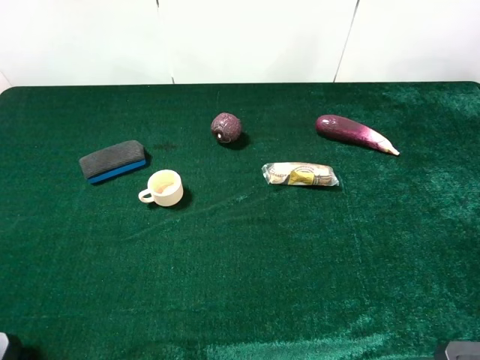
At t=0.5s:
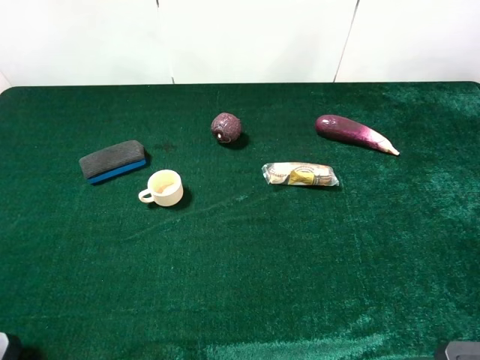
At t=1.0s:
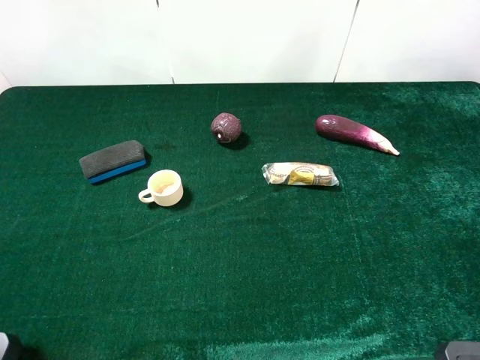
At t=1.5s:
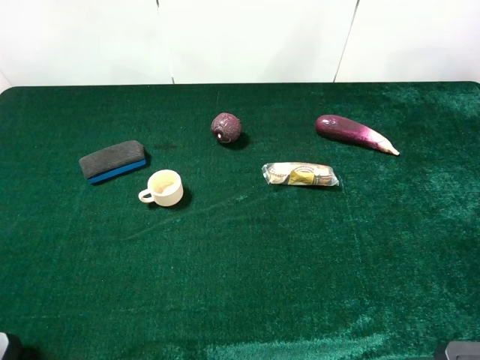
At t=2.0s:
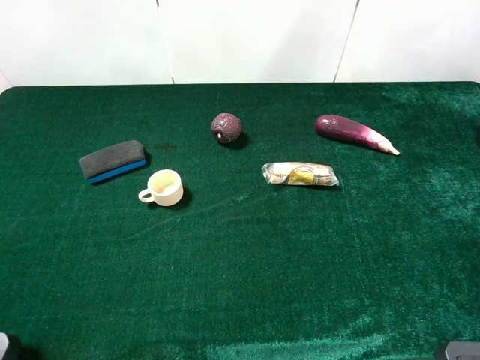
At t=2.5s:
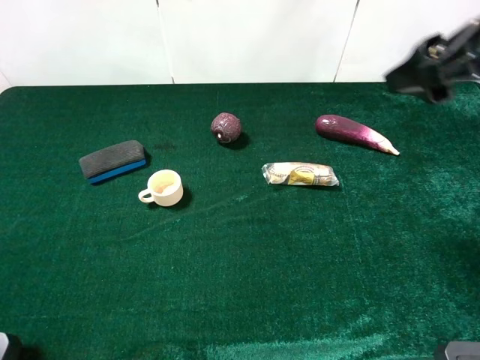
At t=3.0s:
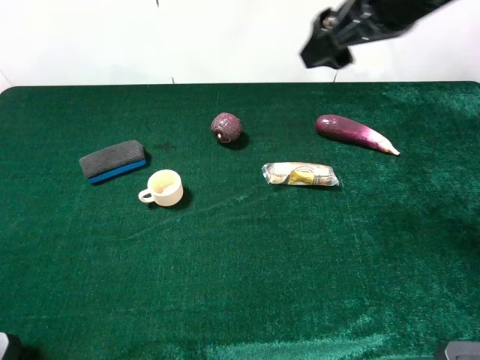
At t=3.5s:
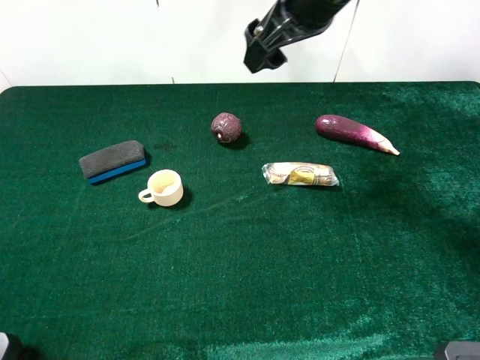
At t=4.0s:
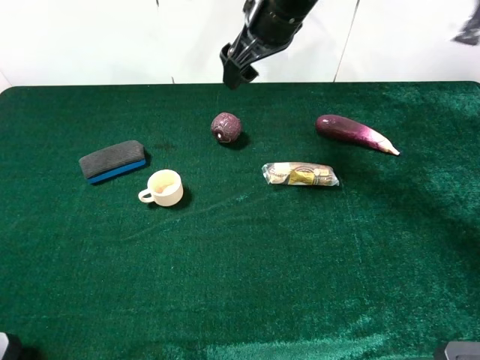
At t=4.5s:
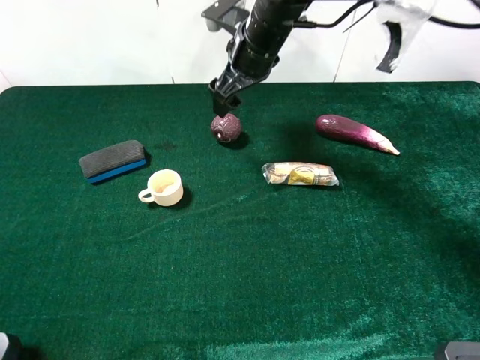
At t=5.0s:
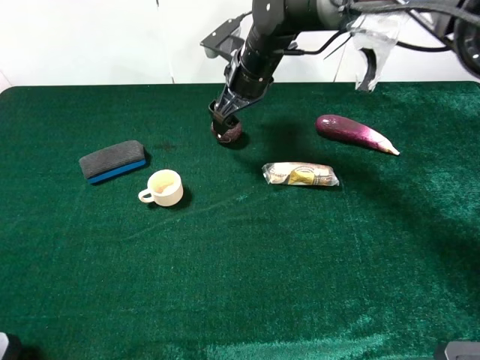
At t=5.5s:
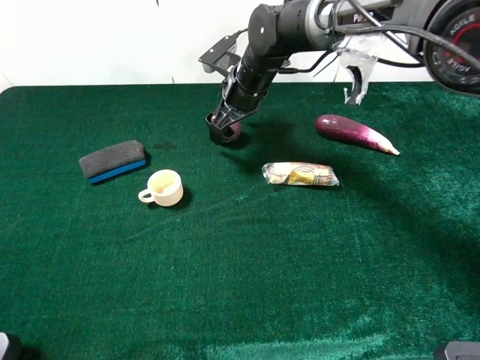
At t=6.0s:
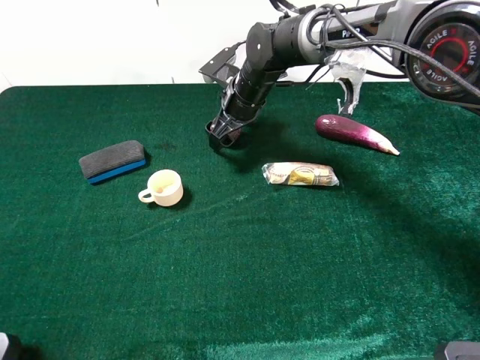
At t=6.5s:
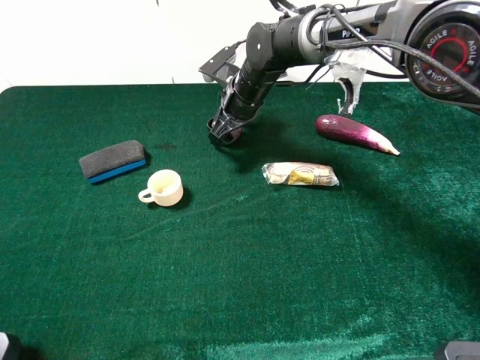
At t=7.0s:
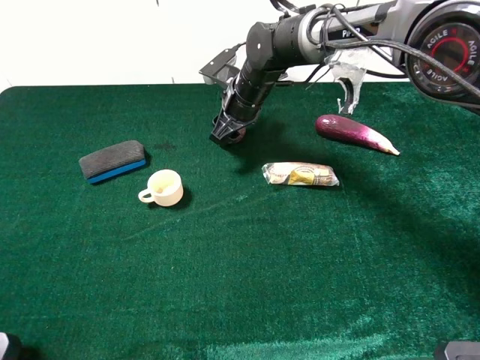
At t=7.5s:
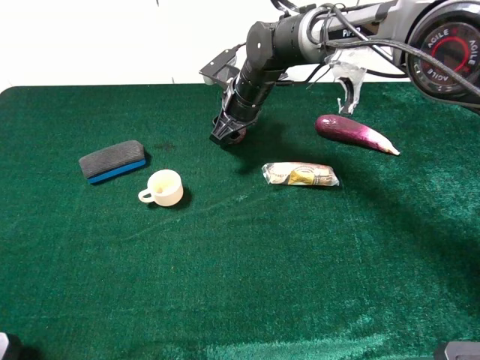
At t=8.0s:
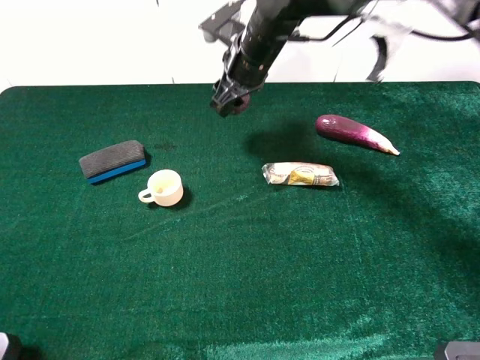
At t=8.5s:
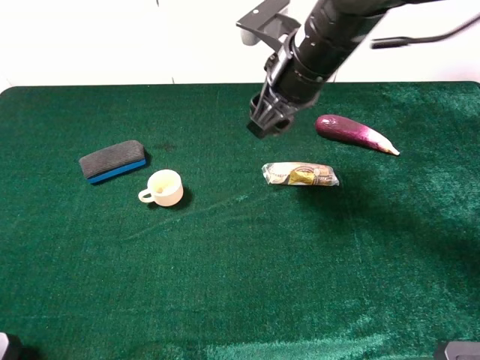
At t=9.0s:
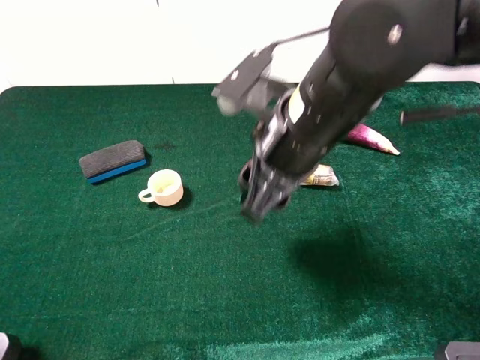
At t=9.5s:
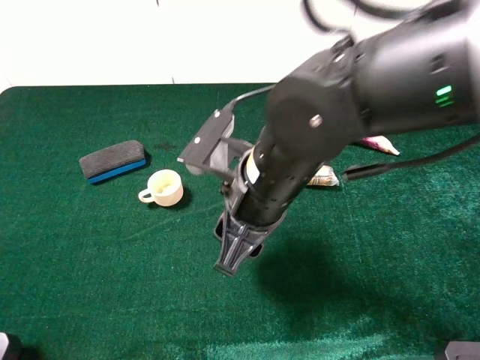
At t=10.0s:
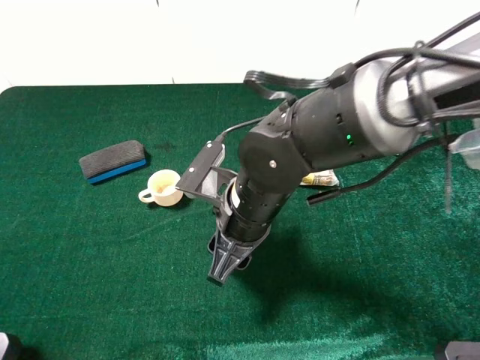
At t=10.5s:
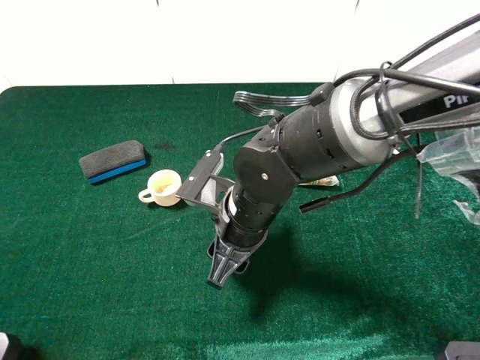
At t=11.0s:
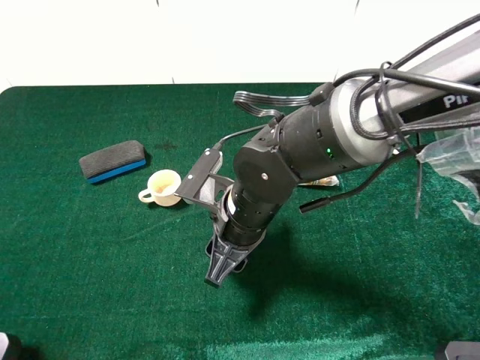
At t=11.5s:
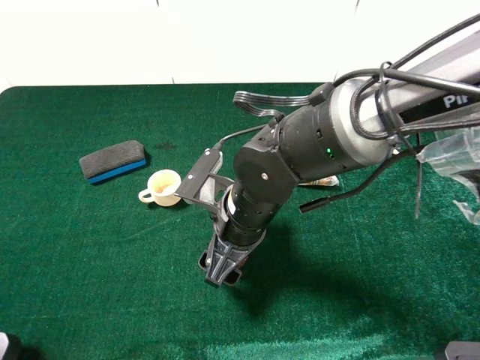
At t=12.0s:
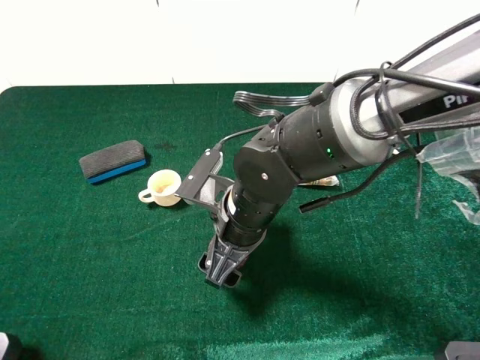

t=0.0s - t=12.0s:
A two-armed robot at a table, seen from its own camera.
Task of the whole recording: the gripper move the object.
Step, t=0.0s - t=6.5s: Grasp the mangosteen with the right gripper.
t=2.0s - t=4.0s: The right gripper is displaced forward and to the left by approximately 35 cm.
t=4.0s - t=6.0s: The right gripper is displaced downward by approximately 15 cm.
t=6.0s - t=8.0s: The right gripper moves upward, some 10 cm, and closes.
t=8.0s - t=10.0s: The right gripper travels backward by approximately 20 cm.
t=10.0s - t=12.0s: The right gripper opens its fingers.

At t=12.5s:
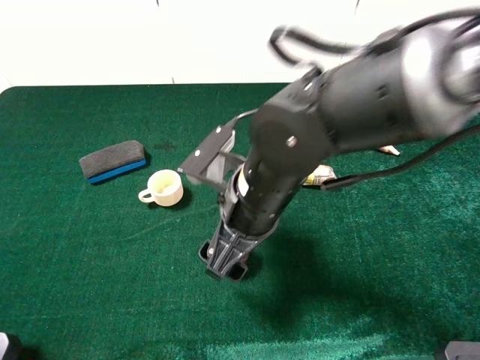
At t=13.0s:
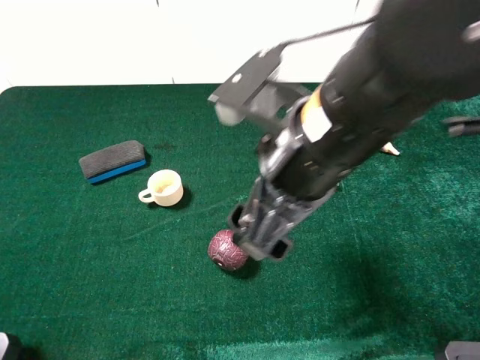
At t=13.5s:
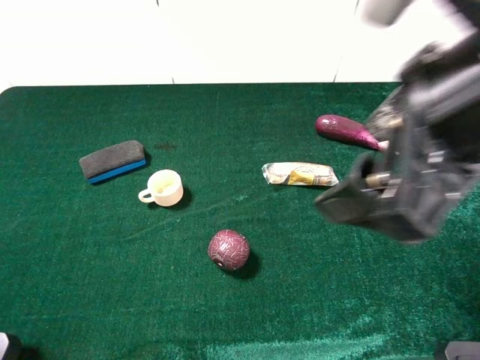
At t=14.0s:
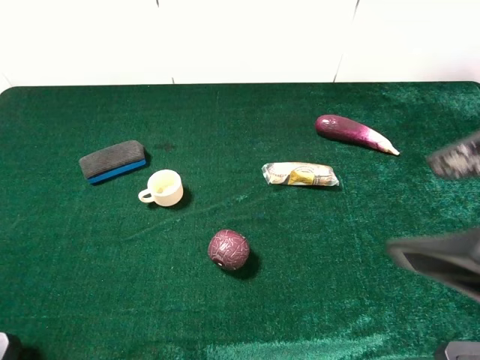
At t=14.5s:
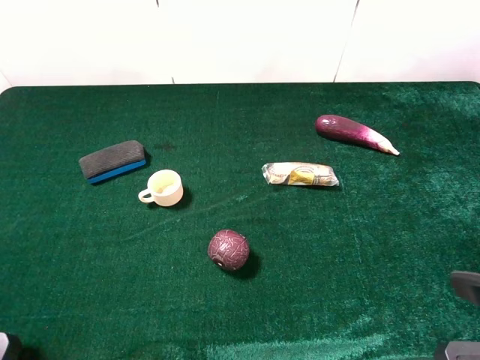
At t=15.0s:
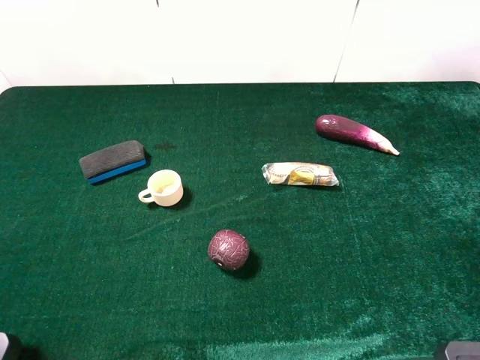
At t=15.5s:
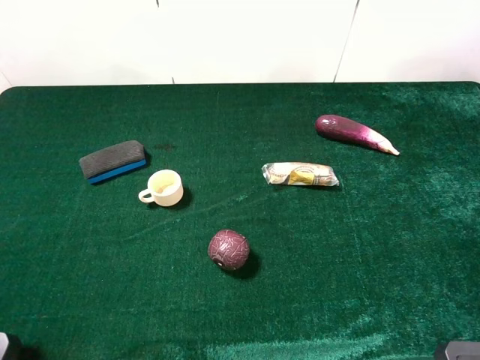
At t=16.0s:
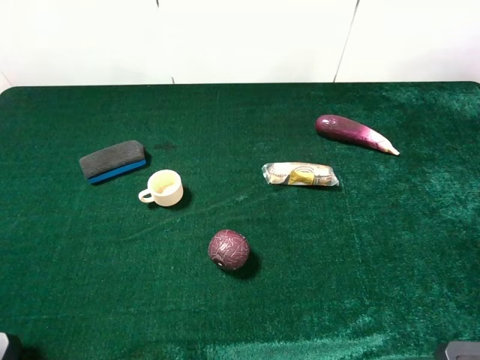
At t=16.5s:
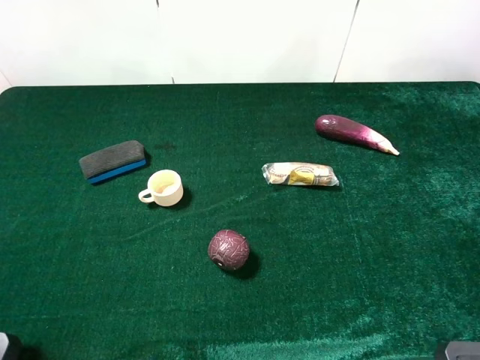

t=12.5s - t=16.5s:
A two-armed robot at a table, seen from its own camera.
Task of the whole recording: the gripper move the object.
t=12.5s - t=14.5s: The right gripper heads to the right, backward and upward, covering about 30 cm.

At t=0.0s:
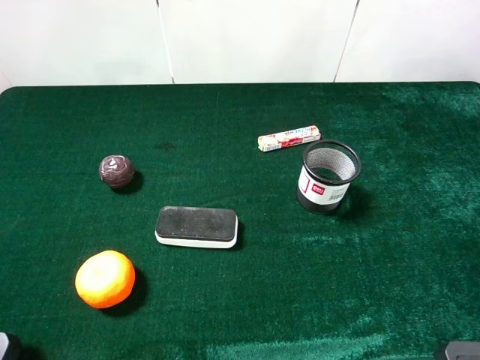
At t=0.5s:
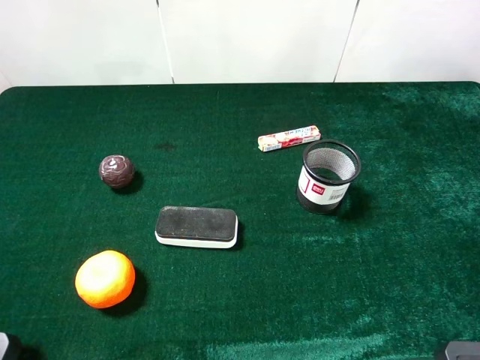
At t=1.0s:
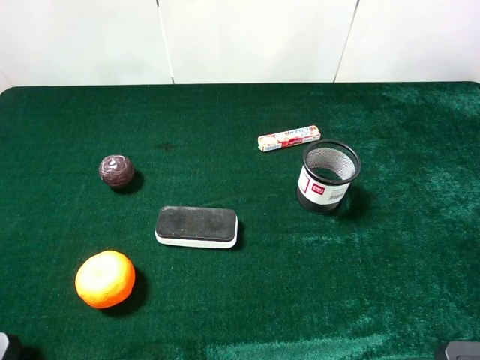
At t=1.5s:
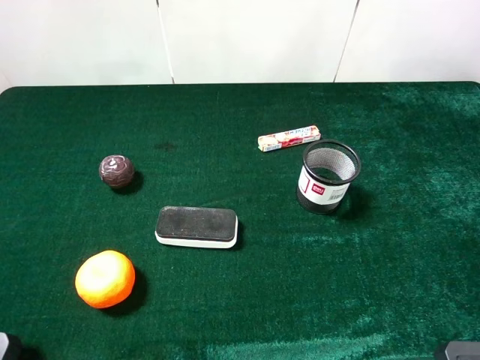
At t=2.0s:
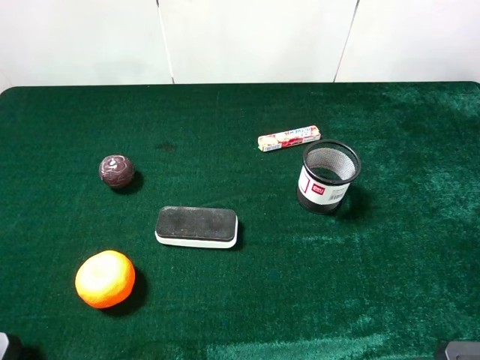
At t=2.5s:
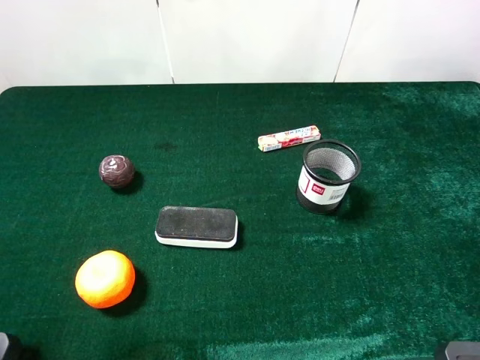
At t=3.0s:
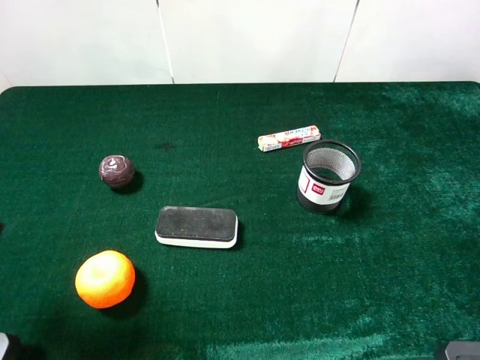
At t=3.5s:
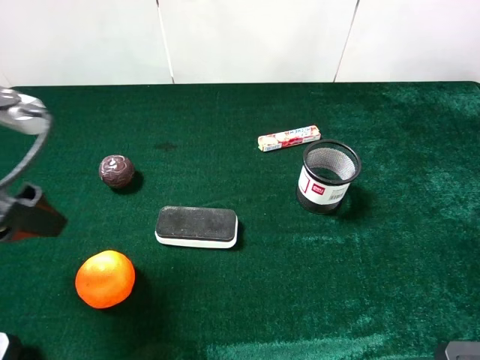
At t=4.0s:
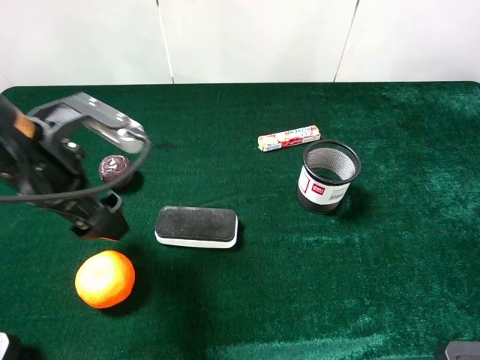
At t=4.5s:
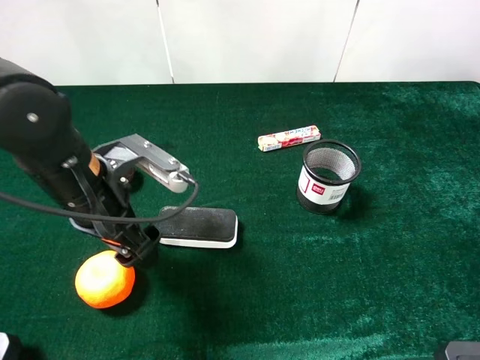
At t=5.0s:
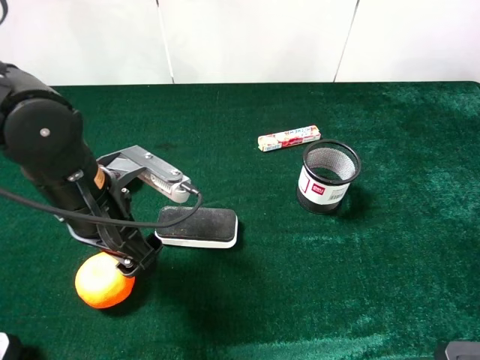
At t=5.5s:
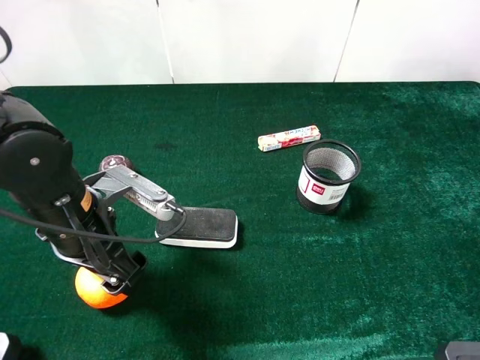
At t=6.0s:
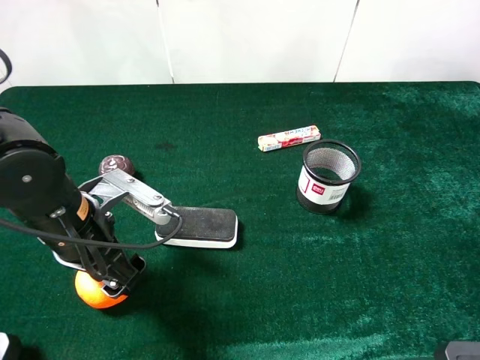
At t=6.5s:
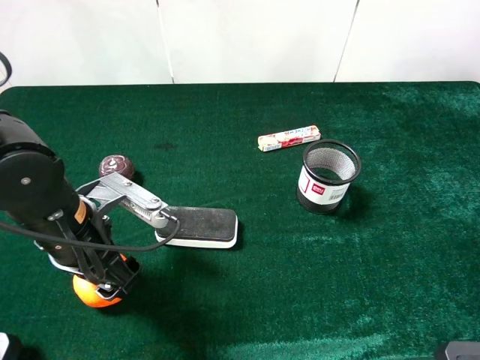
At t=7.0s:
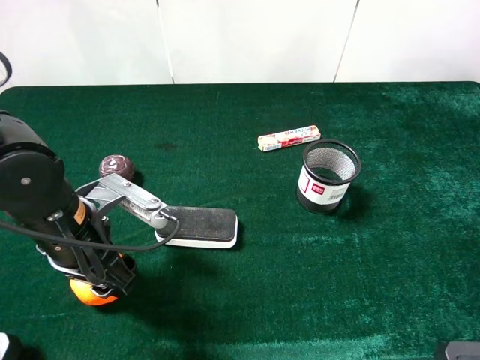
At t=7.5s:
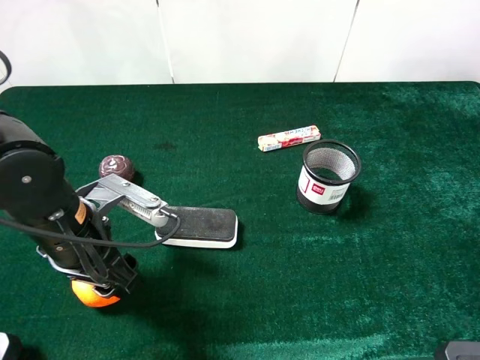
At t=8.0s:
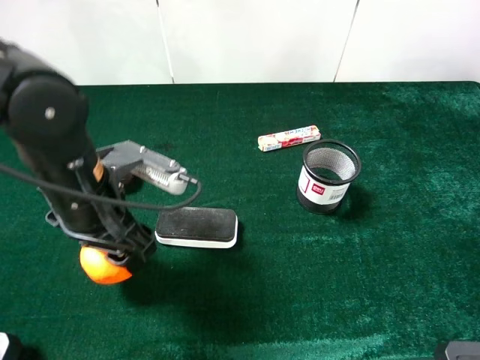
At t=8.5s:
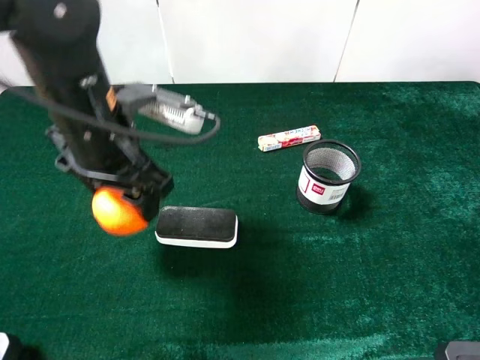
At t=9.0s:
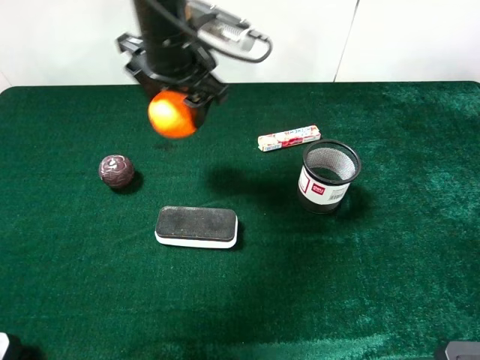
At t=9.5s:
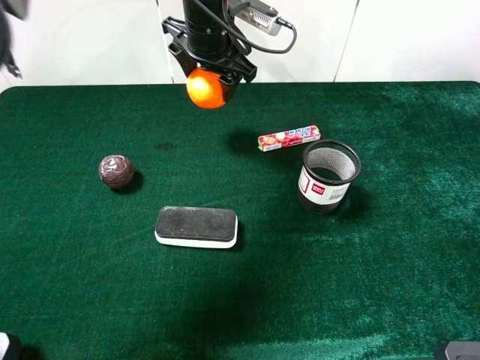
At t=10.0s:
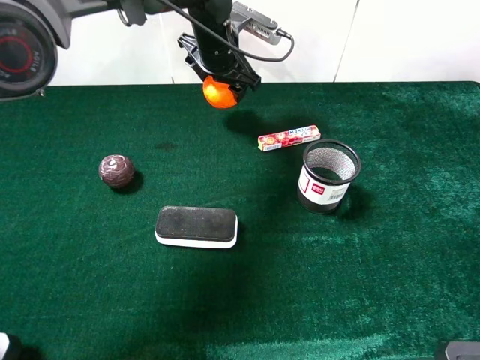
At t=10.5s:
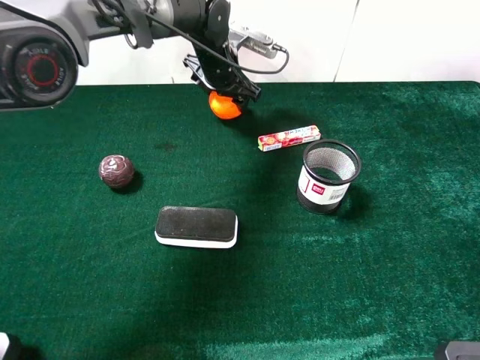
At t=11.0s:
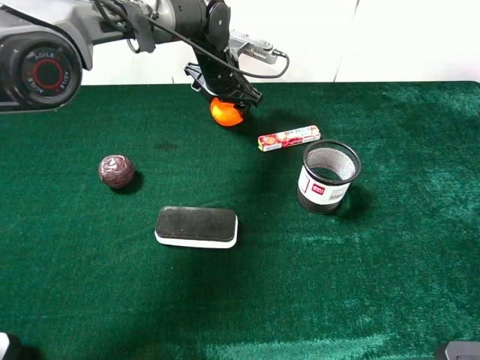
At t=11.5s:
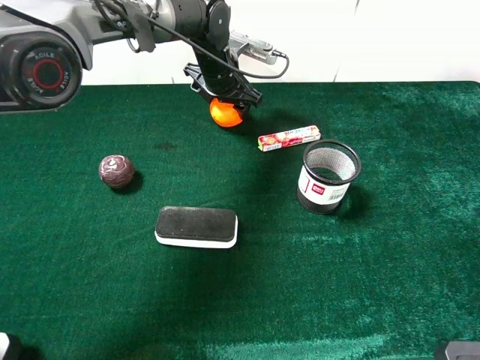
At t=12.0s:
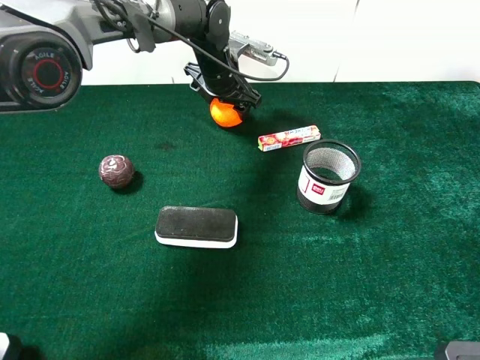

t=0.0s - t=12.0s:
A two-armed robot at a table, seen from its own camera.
Task of the whole recording: the gripper move the object.
Step, t=0.0s - t=6.5s: Grasp the orange with the left gripper.
t=0.0s - t=2.0s: Both grippers stay put.
t=2.0s - t=4.0s: The left gripper moves forward, to the right and downward, approximately 25 cm.
t=4.0s - t=6.0s: The left gripper goes about 10 cm downward.
t=6.0s - t=8.0s: The left gripper ends up about 5 cm from where it was, and closes up.
t=8.0s - t=10.0s: The left gripper is displaced forward and to the right by about 30 cm.
t=10.0s - t=12.0s: There are only small adjustments of the grippers.
